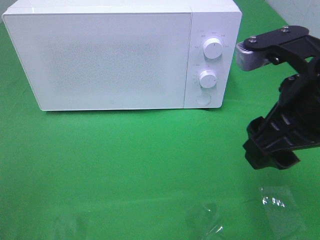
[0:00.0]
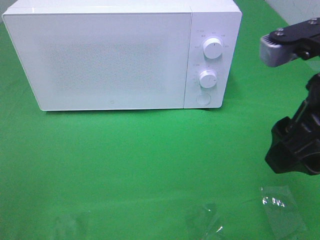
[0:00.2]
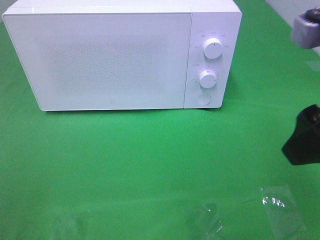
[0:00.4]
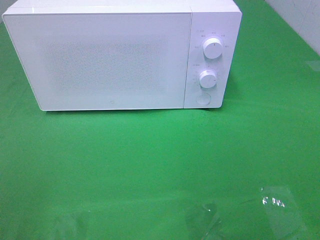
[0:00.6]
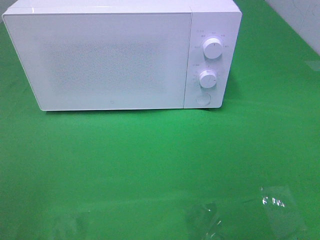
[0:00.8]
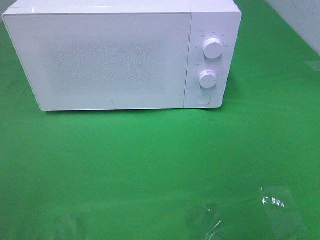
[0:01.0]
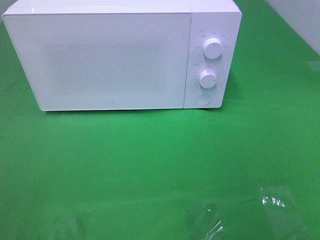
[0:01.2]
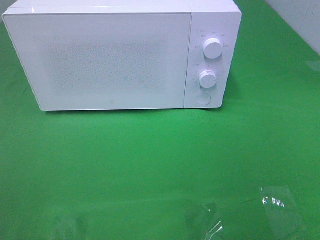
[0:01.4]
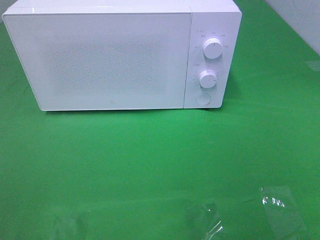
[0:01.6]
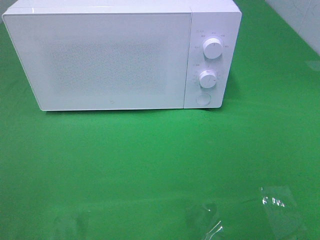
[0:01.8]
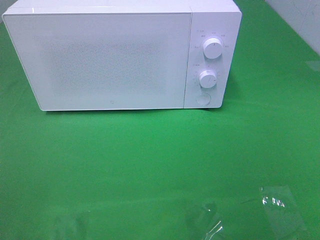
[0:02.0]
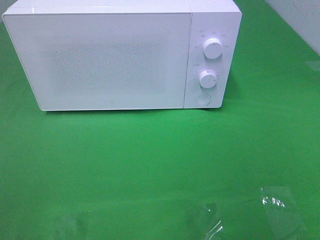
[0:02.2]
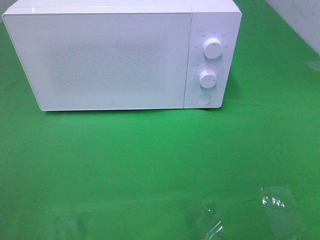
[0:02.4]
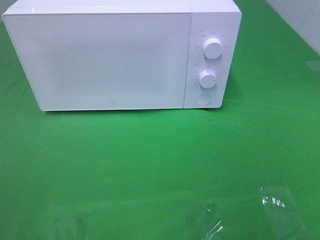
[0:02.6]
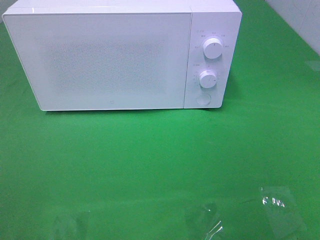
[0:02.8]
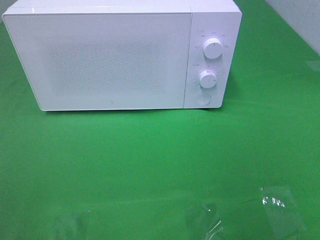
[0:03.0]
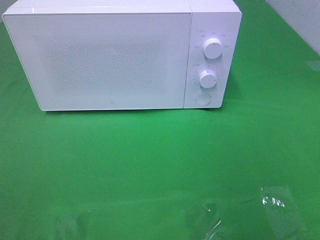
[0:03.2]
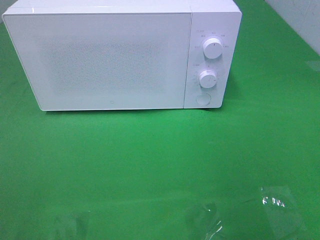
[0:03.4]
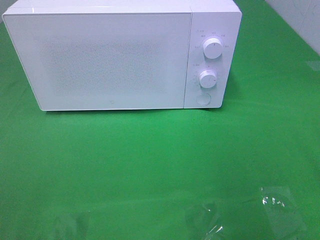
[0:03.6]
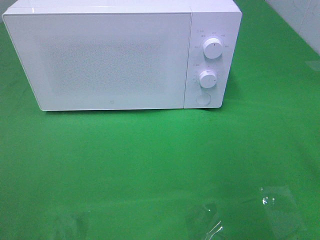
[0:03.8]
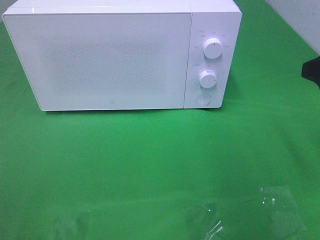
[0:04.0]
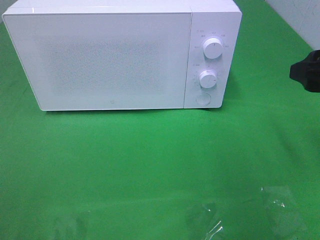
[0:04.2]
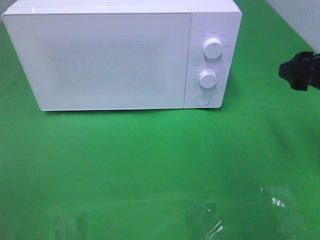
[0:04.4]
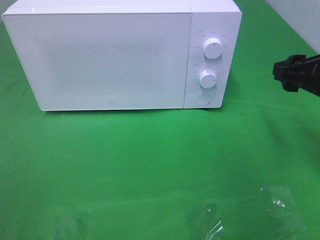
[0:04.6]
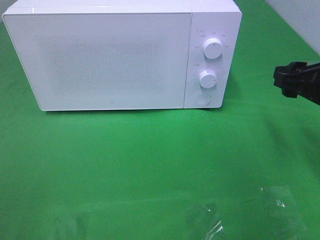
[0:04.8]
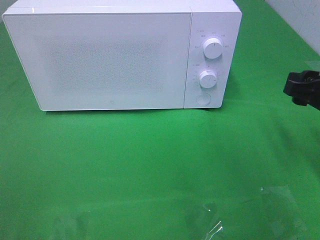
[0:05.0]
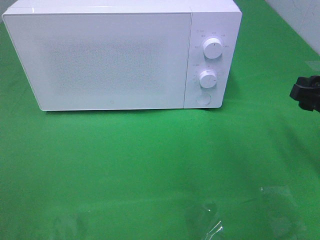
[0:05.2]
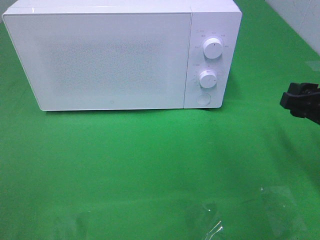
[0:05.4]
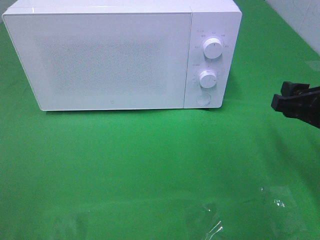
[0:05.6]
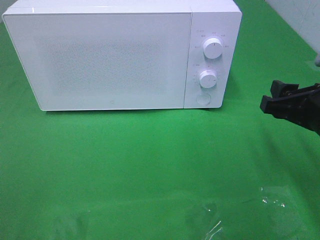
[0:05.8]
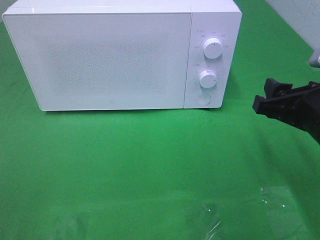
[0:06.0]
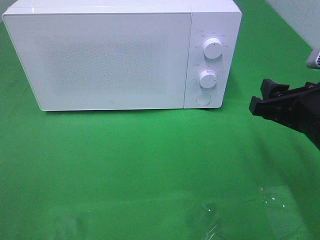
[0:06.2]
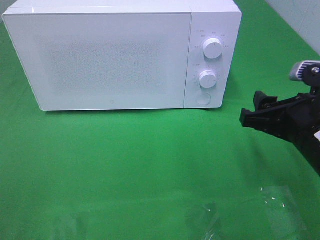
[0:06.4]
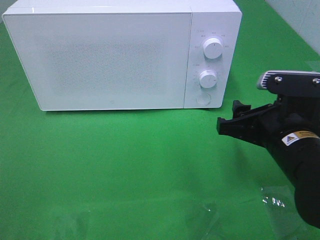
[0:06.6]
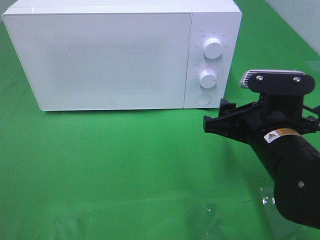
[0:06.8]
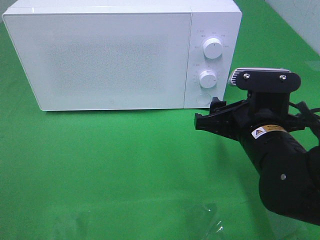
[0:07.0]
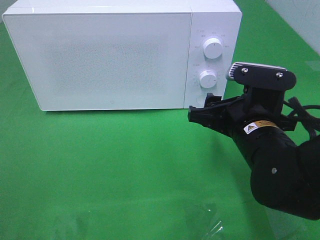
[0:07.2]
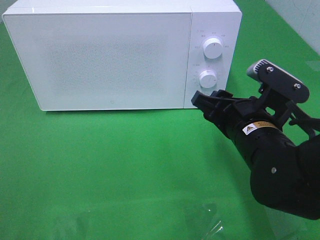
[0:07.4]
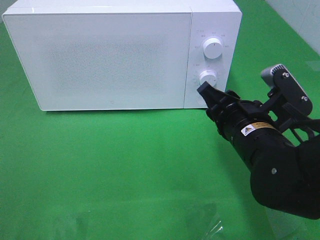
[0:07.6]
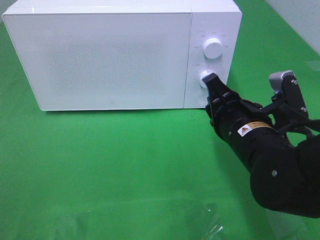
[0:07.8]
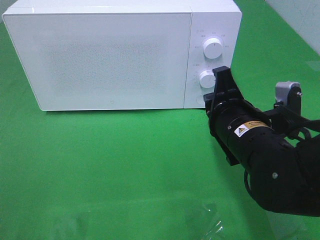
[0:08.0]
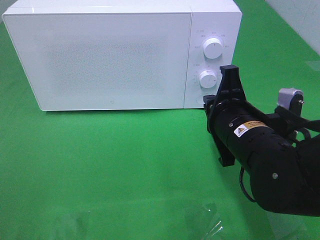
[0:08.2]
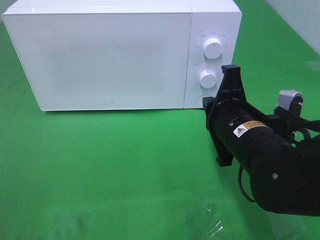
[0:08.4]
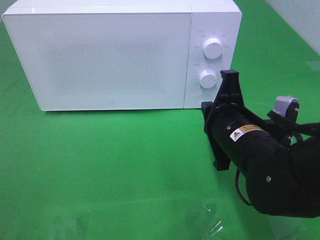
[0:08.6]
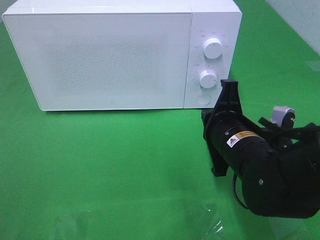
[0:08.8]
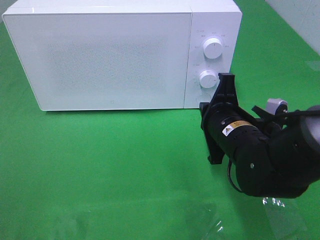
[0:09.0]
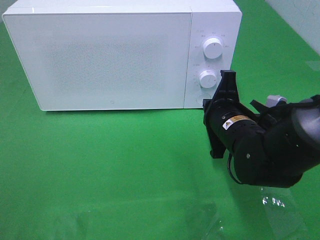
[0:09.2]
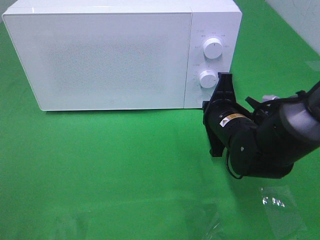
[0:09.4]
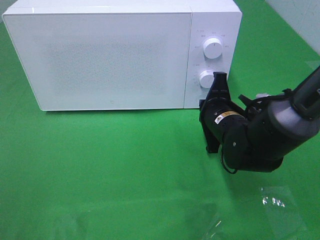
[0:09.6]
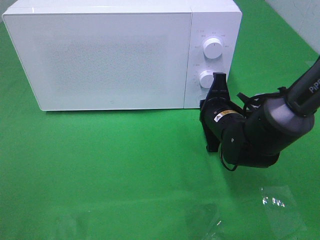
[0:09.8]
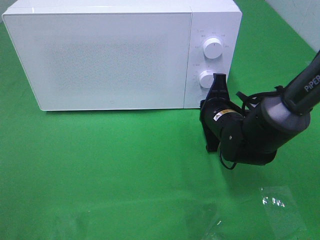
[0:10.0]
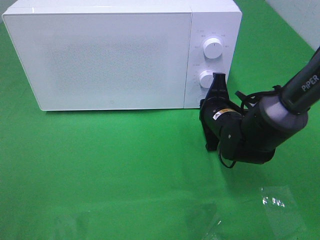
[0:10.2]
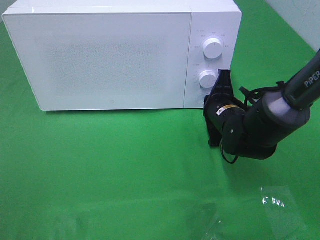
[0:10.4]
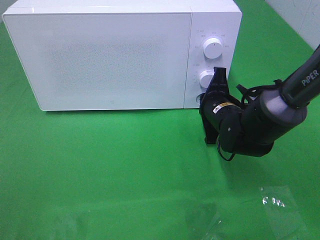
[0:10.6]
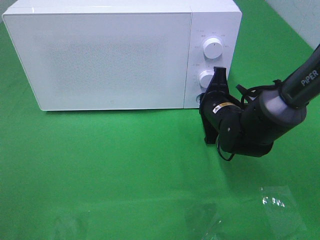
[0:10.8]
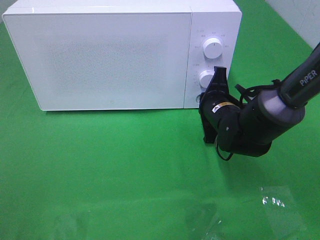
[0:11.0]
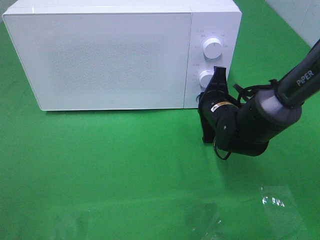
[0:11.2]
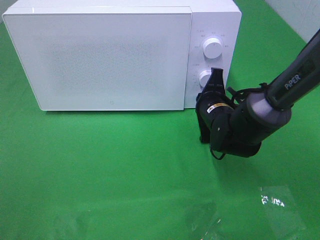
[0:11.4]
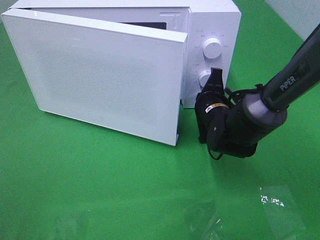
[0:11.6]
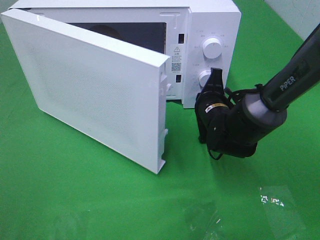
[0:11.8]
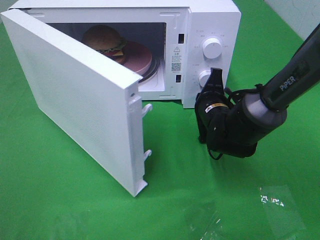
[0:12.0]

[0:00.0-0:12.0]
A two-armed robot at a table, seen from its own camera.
Task of the whole recording: Heat the burger.
0:00.0 to 0:01.6: The right gripper is displaced backward and to the right by about 20 cm.
0:03.0 to 0:04.4: The right gripper moves forward and downward, roughly 20 cm.
0:04.4 to 0:06.0: The right gripper moves about 10 cm.
0:06.0 to 0:07.6: The right gripper moves to the left, approximately 10 cm.
0:07.6 to 0:09.0: The right gripper closes its fingers.
0:09.0 to 0:10.4: The right gripper goes roughly 10 cm forward.

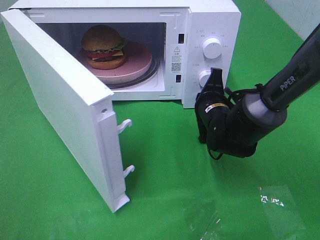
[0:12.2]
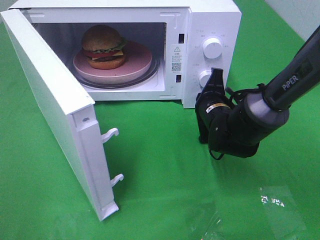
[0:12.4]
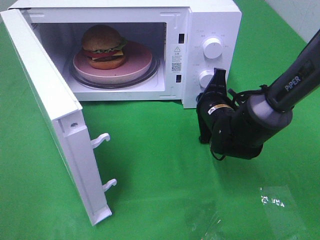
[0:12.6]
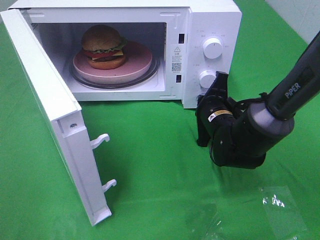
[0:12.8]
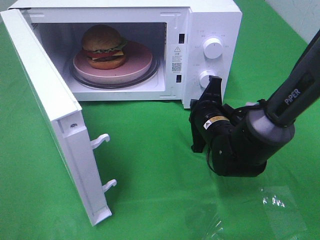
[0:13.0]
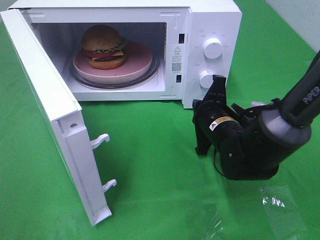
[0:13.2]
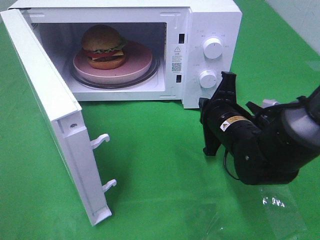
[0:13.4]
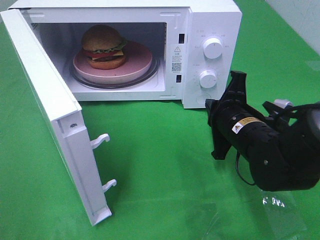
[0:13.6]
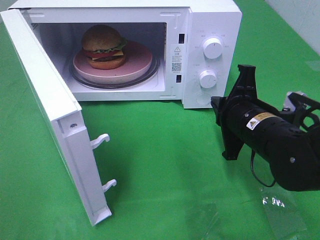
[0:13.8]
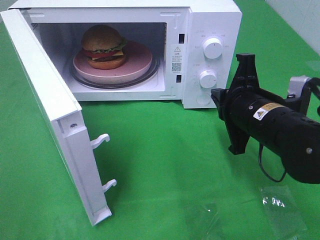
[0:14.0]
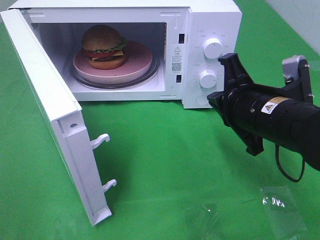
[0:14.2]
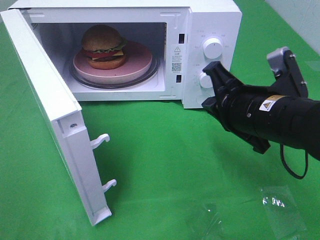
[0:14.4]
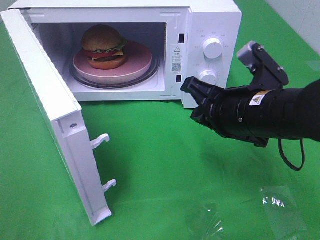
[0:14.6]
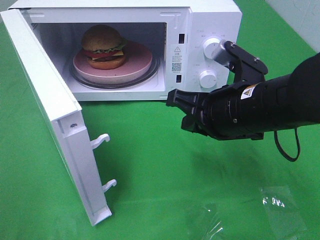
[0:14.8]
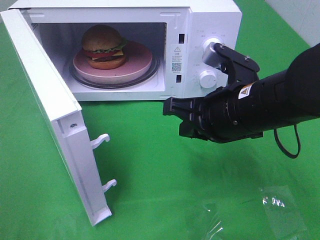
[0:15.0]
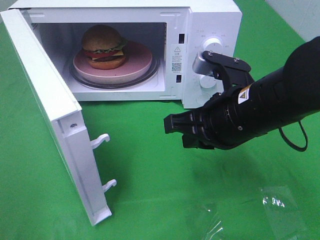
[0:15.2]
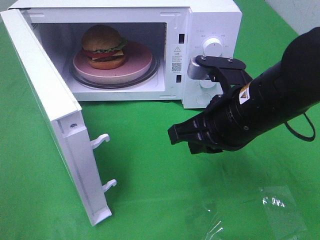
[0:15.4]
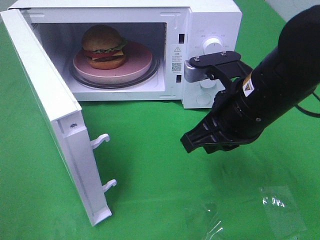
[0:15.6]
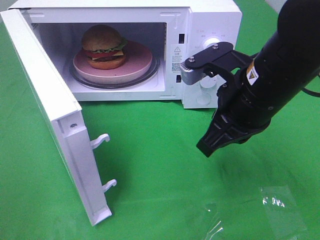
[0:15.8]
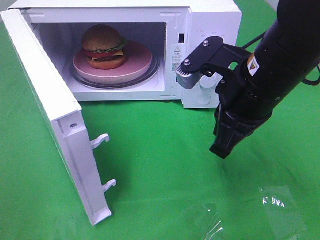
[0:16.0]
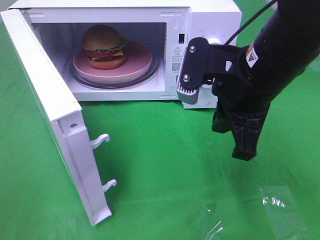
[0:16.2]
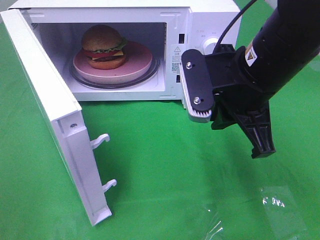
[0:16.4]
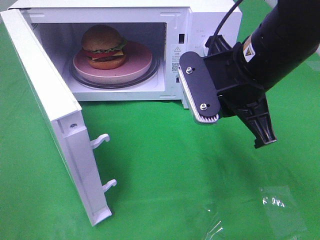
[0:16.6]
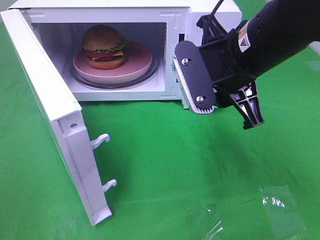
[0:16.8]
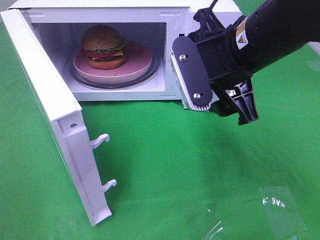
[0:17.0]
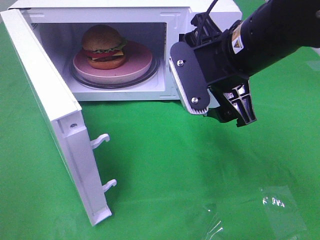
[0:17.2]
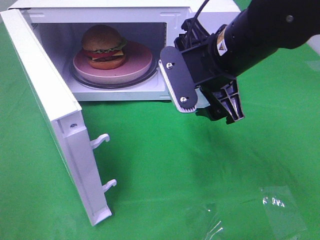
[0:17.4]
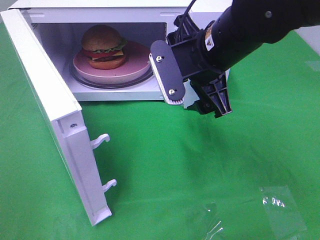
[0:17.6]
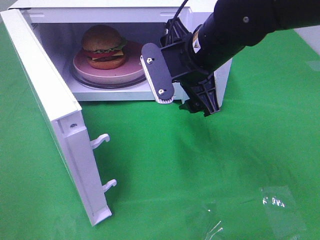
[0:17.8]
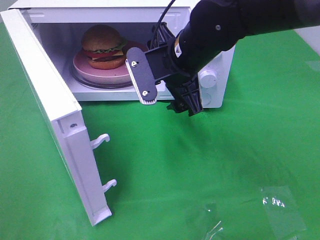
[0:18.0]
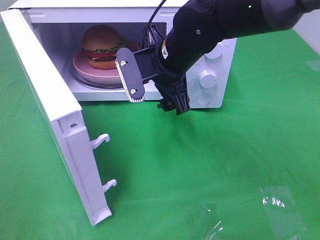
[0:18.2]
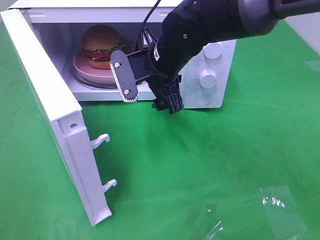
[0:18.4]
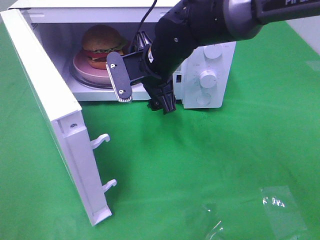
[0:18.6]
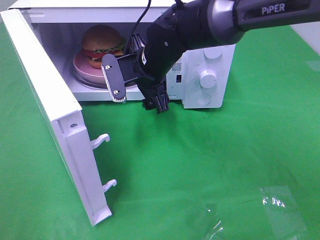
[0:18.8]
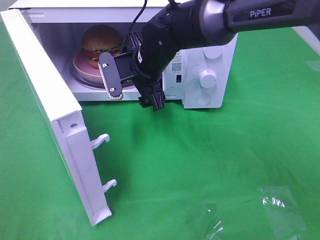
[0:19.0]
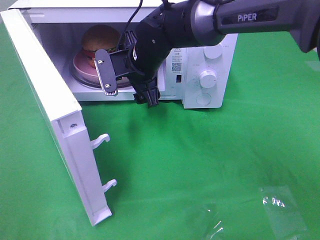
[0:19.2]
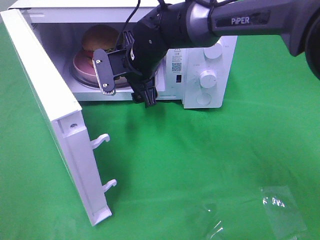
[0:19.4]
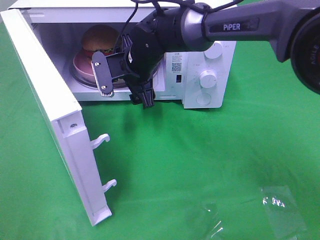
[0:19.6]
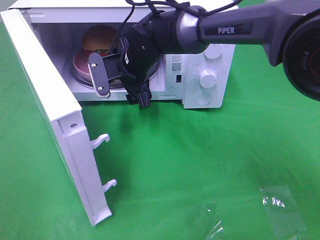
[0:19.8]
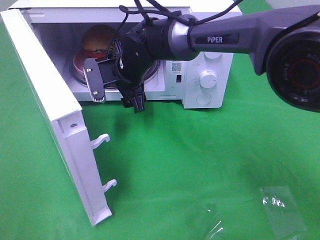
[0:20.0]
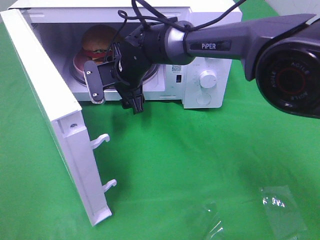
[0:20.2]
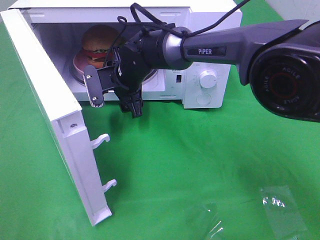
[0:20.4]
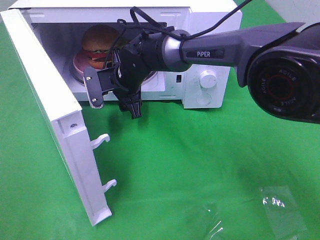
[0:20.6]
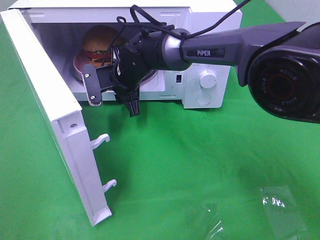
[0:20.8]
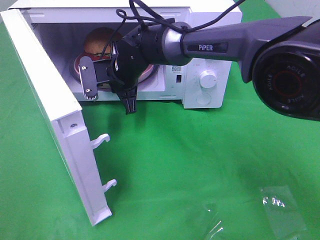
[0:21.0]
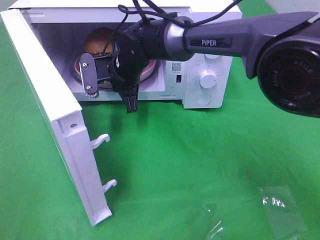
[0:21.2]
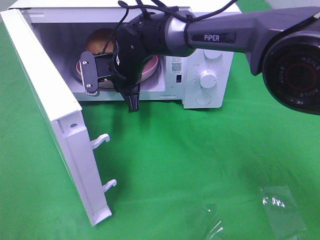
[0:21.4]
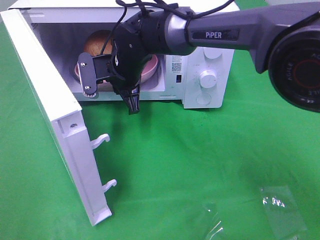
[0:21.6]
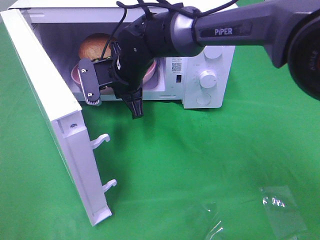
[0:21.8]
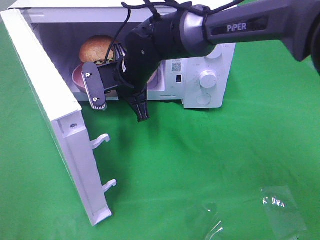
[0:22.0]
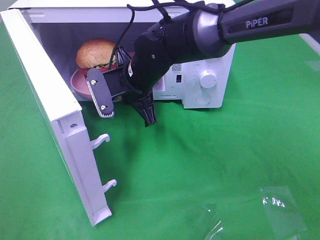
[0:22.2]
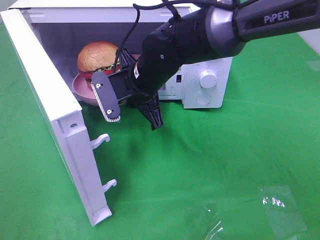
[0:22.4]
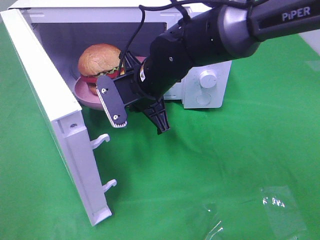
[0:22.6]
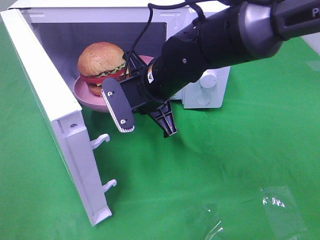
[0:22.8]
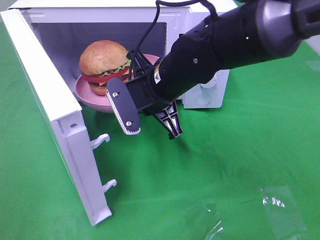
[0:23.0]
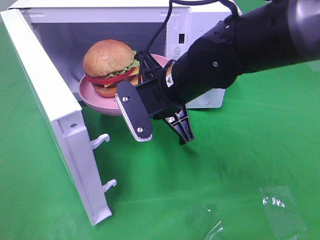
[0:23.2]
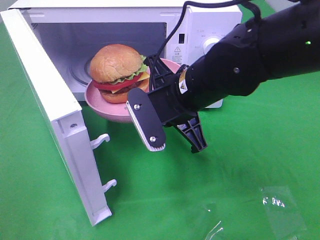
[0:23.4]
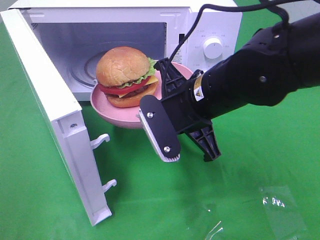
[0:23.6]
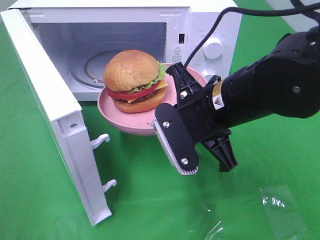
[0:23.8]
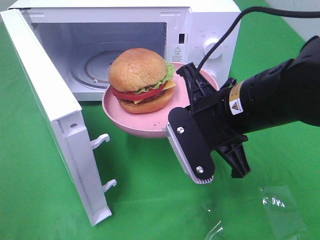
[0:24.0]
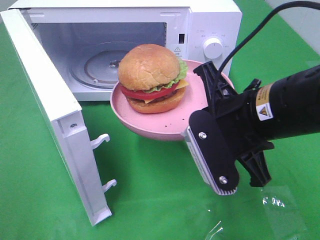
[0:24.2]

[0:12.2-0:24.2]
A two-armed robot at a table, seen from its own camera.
Task of the whole recording: Heat the burger.
Step, 0:14.2 to 0:21.2: Right hand: grab the plate with the hamburger.
0:12.2 to 0:13.8: The right gripper is displaced backward and upward by about 15 cm.
0:13.8 to 0:15.2: The right gripper heads upward, covering some 5 cm.
0:15.2 to 0:16.6: The right gripper travels upward by about 5 cm.
0:16.6 to 0:18.2: The right gripper moves forward and to the left, roughly 15 cm, and opens.
0:18.2 to 0:19.8: The right gripper travels forward, to the left and downward by about 10 cm.
0:19.8 to 0:21.2: The right gripper closes.
0:21.2 to 0:22.6: The right gripper shifts roughly 10 cm backward.
0:22.6 to 0:24.2: The right gripper goes roughly 20 cm backward and to the right.
